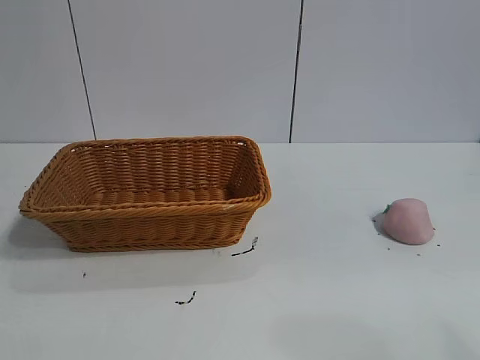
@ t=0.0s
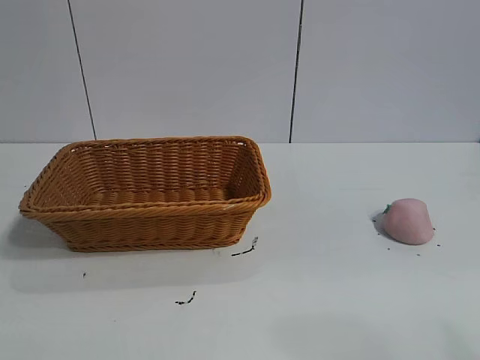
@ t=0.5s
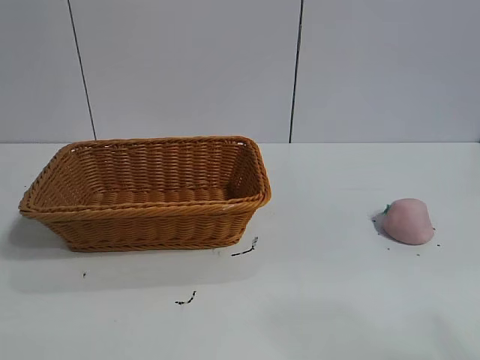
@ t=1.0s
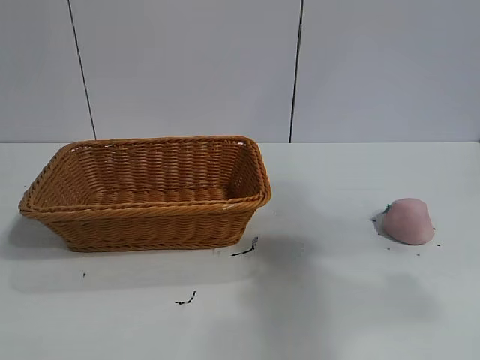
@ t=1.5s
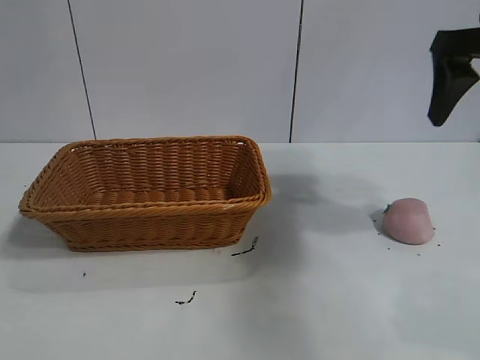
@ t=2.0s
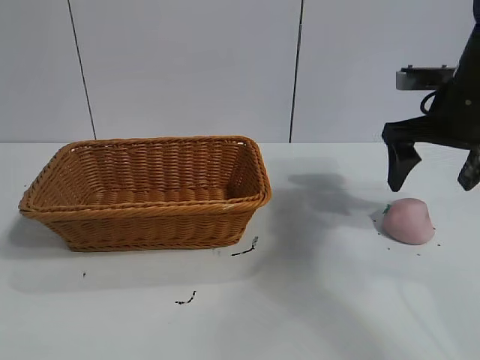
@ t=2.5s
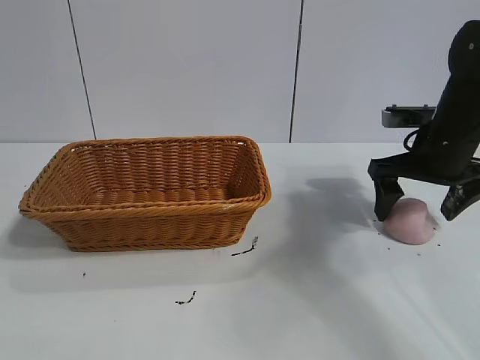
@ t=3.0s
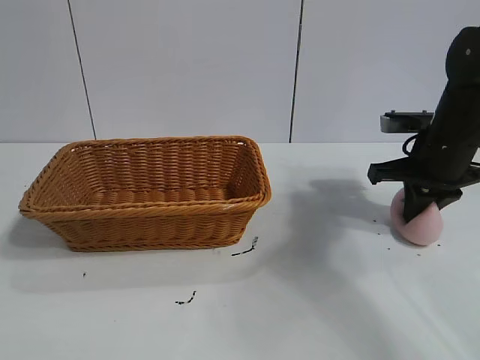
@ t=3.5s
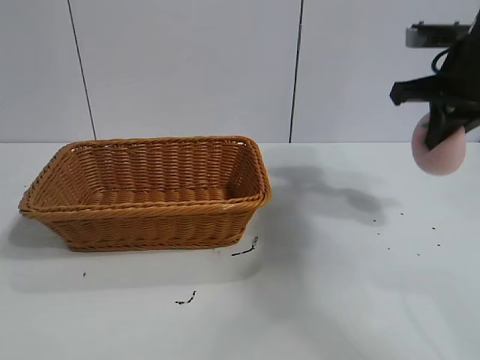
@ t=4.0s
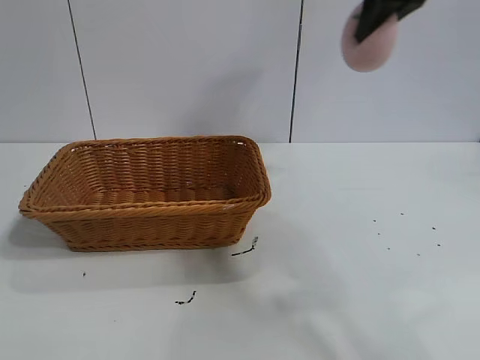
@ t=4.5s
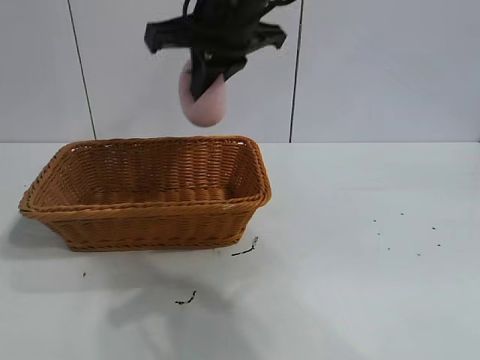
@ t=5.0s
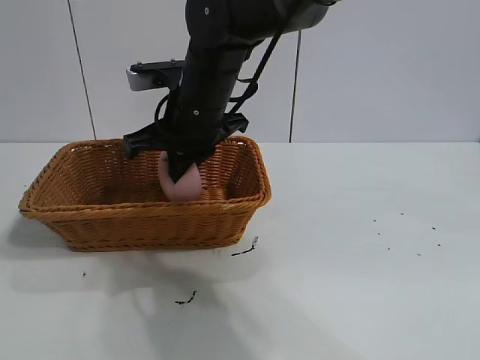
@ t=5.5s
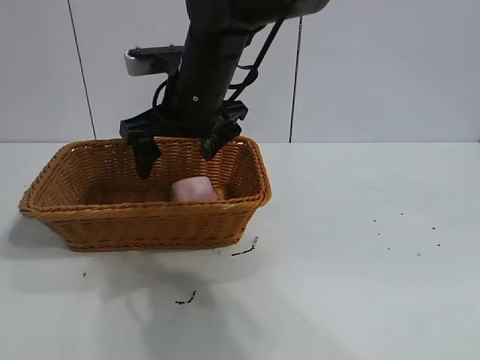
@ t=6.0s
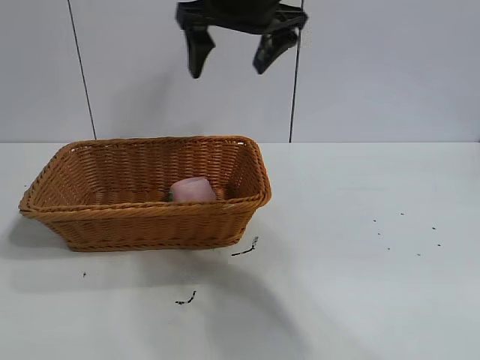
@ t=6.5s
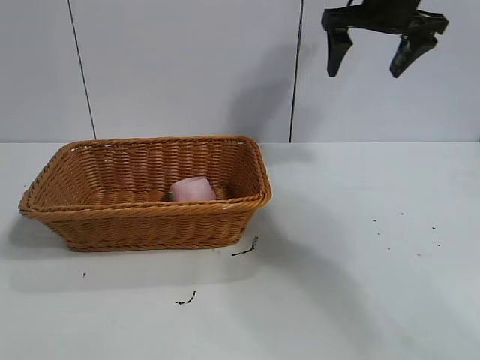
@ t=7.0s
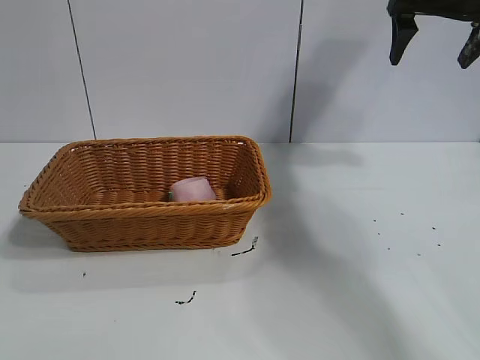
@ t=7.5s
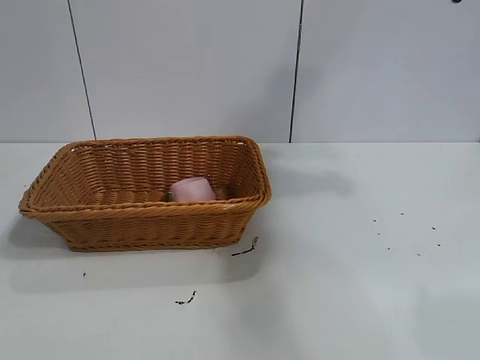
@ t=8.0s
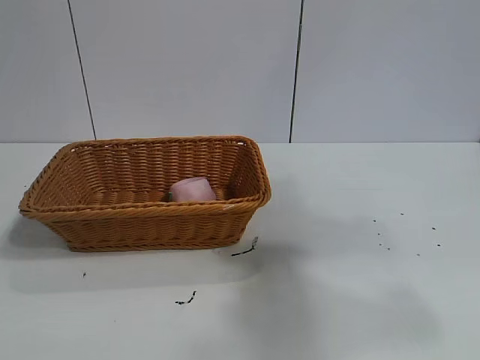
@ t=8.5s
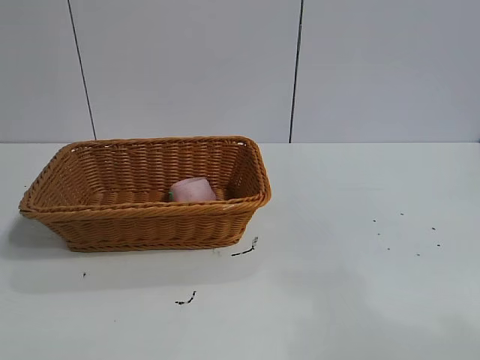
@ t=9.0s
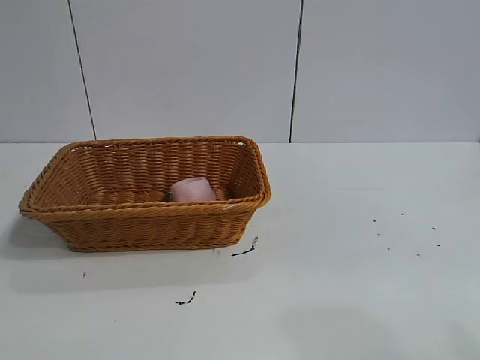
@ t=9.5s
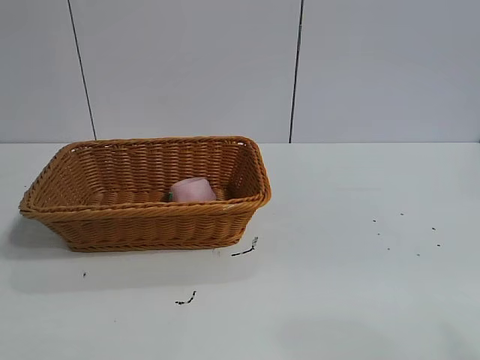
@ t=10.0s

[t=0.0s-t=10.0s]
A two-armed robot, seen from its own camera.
Task of the whole recording: pick up the peach and put it into the basket.
Step, t=1.0s to t=3.5s: Grasp the peach with right gripper.
Step, t=4.0s to t=6.0s: Place the peach in the basket with right gripper.
